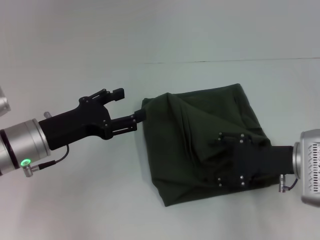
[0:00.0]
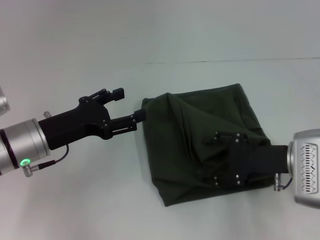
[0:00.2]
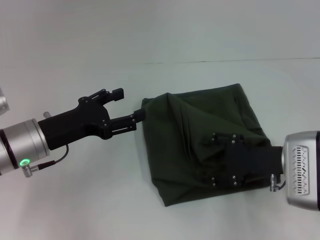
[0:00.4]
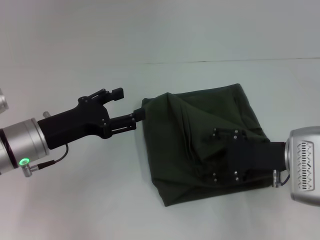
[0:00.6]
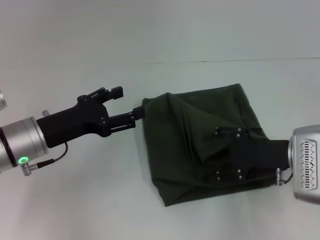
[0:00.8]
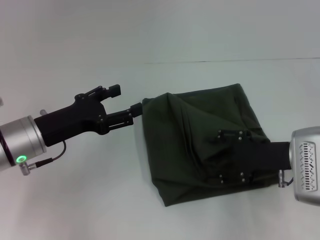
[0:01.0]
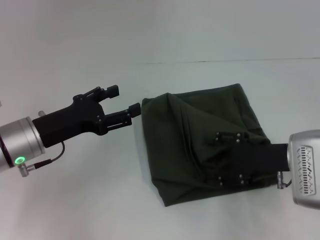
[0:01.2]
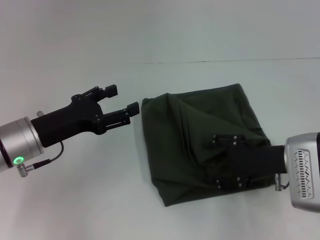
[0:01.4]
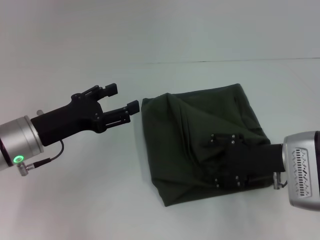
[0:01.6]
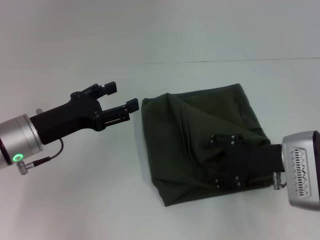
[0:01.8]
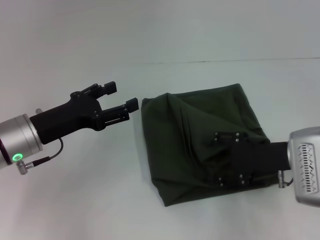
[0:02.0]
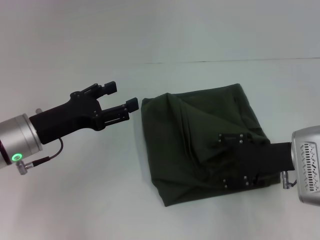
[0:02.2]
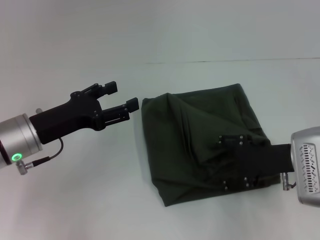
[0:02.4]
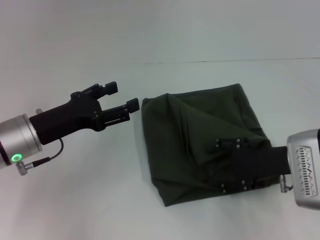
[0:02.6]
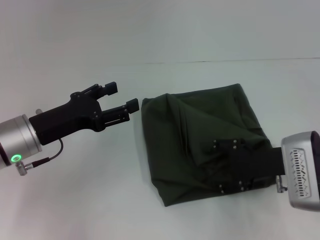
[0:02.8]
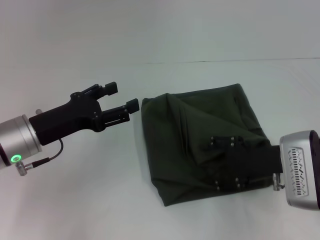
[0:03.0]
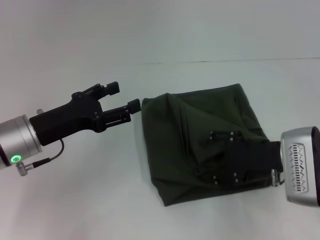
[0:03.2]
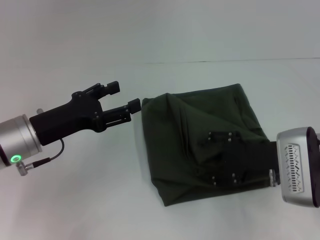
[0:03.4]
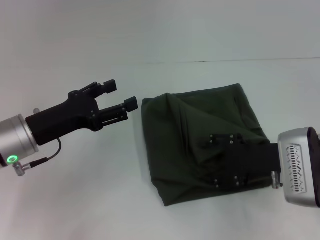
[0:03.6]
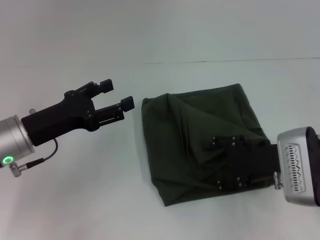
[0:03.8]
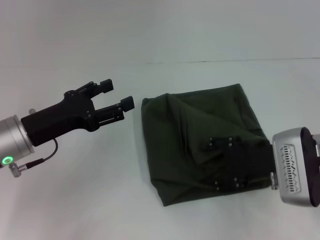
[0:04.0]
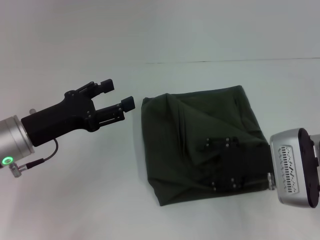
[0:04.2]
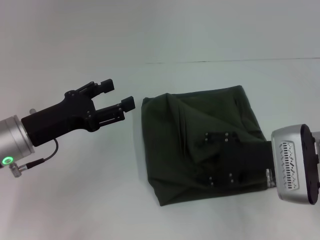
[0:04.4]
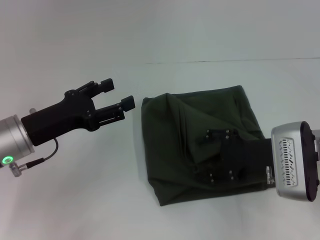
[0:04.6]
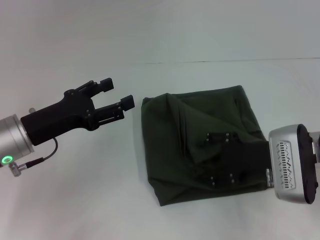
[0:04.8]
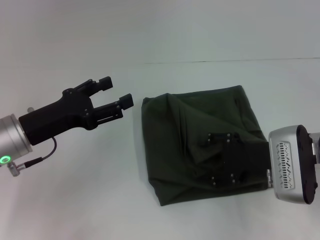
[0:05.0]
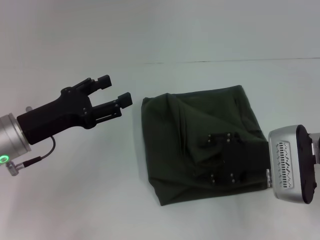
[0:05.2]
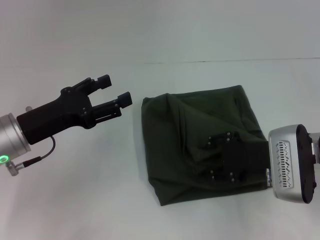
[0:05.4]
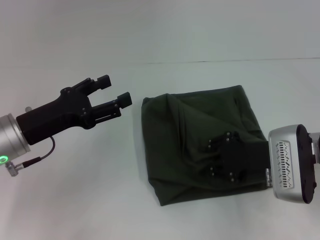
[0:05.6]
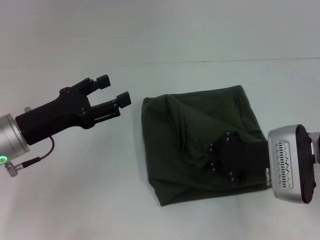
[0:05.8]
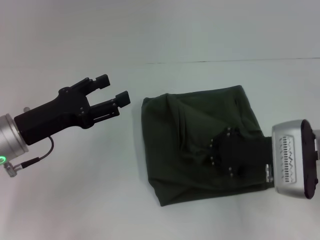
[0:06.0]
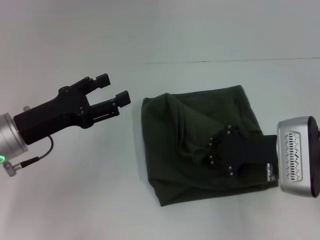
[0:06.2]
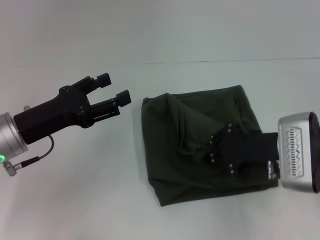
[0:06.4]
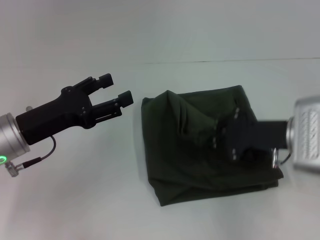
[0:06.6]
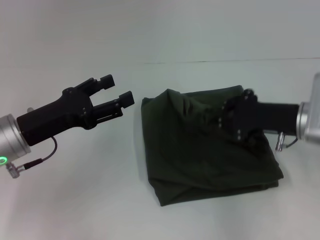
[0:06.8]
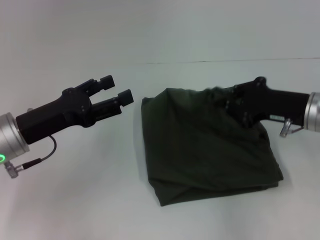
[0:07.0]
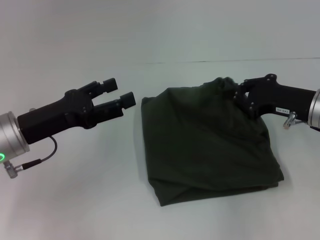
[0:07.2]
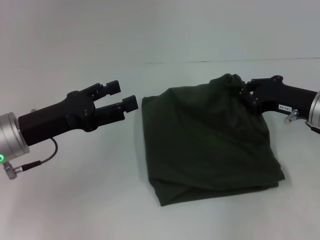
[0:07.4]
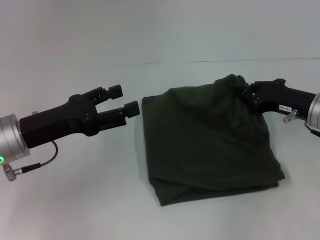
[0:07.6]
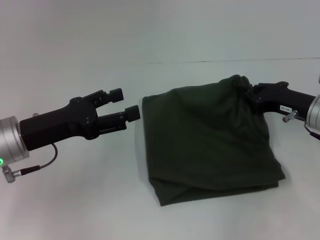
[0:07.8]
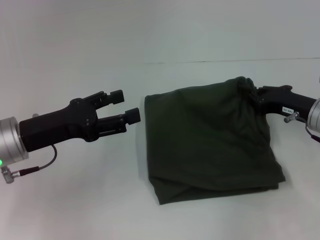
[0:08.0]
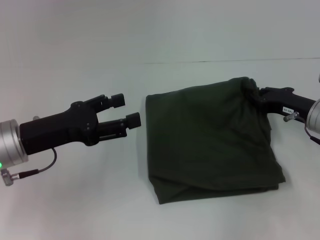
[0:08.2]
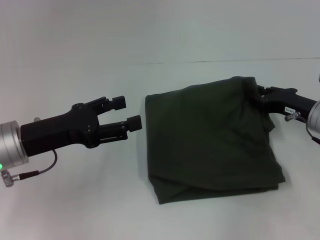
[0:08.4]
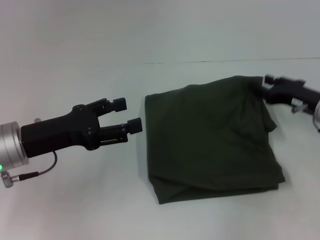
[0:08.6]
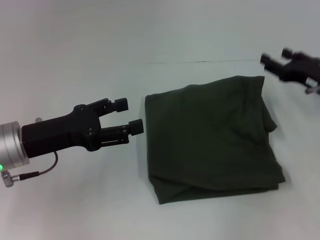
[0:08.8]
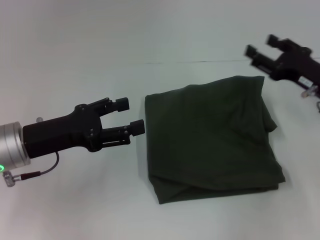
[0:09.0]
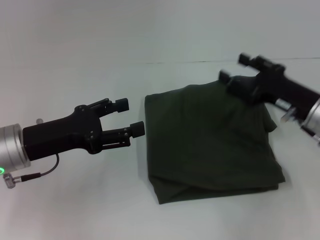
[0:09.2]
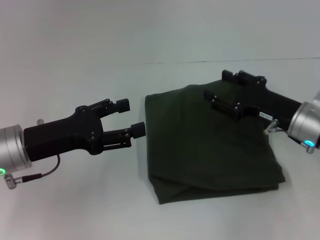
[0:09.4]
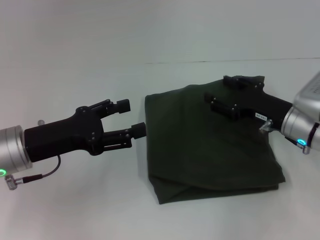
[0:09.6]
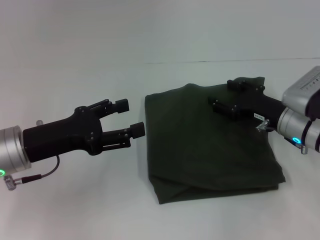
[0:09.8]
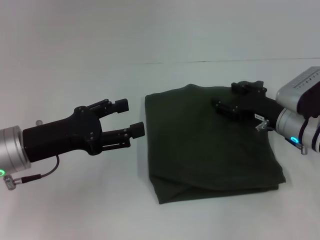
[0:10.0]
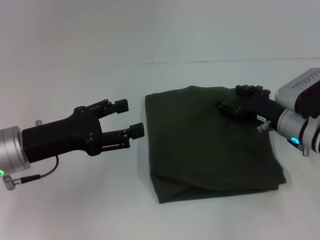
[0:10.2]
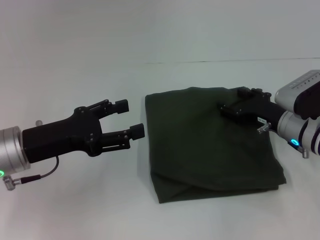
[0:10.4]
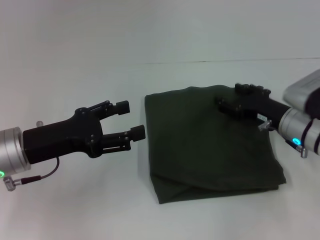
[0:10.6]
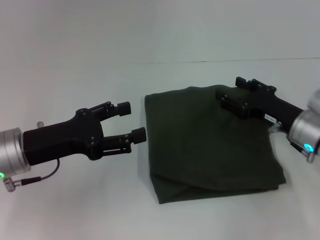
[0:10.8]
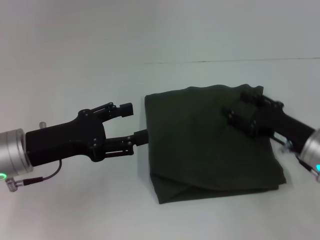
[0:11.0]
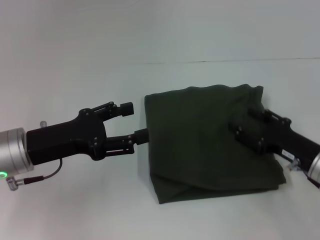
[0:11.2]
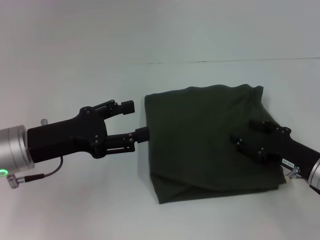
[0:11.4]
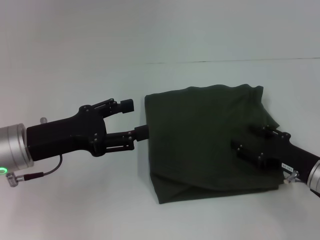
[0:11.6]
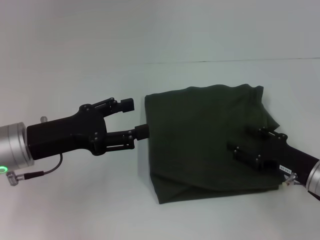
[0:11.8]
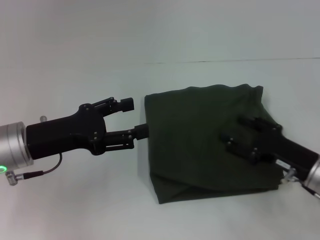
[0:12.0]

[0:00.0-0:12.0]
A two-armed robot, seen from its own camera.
0:00.0 to 0:01.6: The grippers stay close to where they were, moving slightly.
0:01.6 to 0:04.4: Both grippers stay put.
0:04.4 to 0:06.0: The right gripper closes its fingers.
0:06.0 to 0:07.6: The right gripper travels to the right by some 5 cm.
0:07.6 to 0:09.0: The right gripper opens up.
0:09.0 to 0:10.4: The right gripper travels downward by about 5 cm.
0:10.4 to 0:12.0: The right gripper goes roughly 10 cm backward.

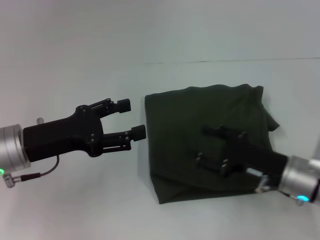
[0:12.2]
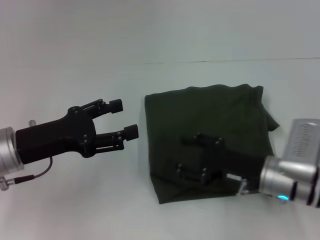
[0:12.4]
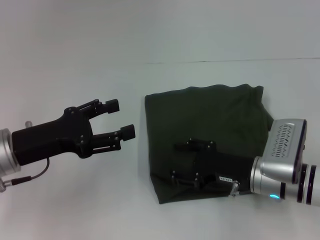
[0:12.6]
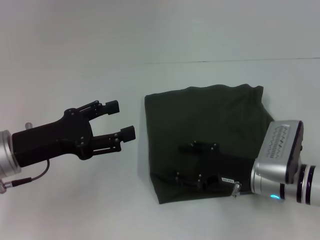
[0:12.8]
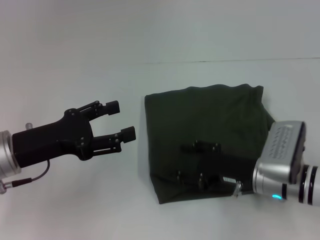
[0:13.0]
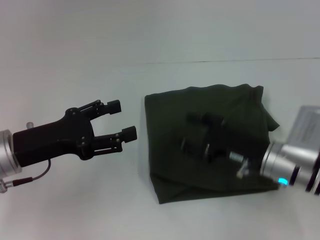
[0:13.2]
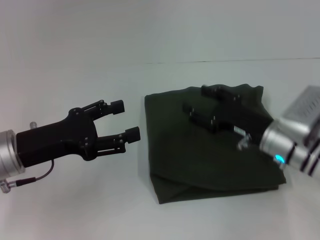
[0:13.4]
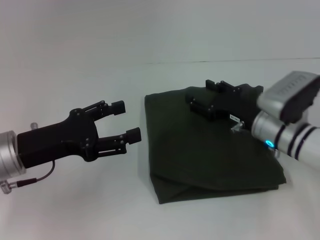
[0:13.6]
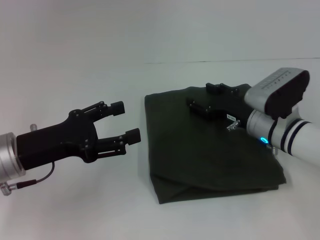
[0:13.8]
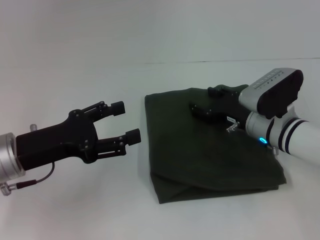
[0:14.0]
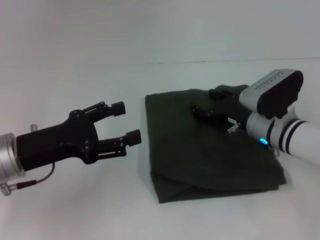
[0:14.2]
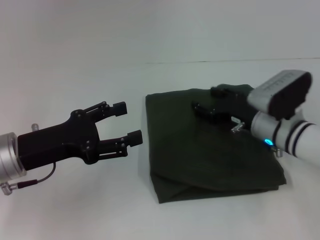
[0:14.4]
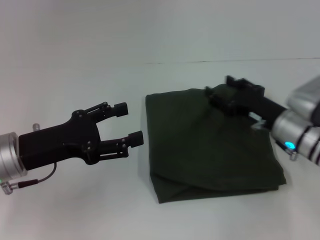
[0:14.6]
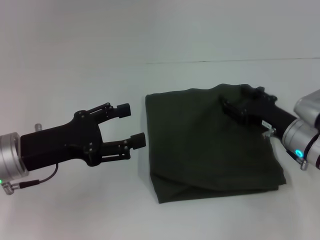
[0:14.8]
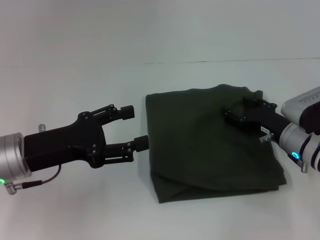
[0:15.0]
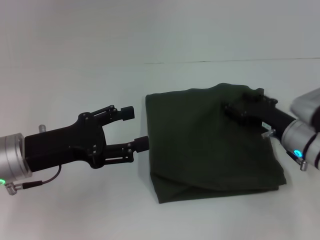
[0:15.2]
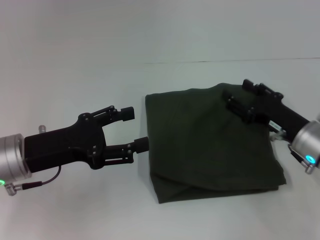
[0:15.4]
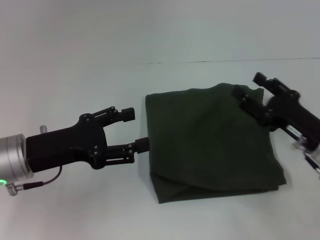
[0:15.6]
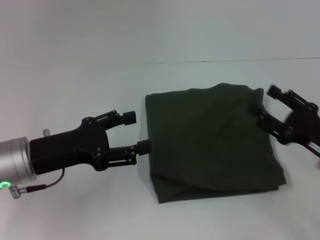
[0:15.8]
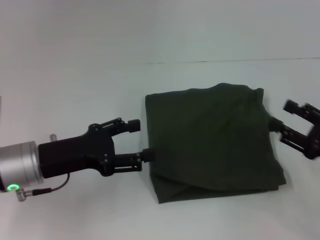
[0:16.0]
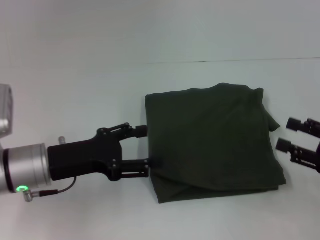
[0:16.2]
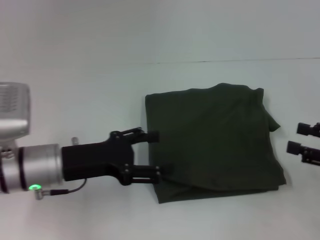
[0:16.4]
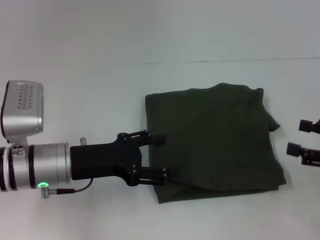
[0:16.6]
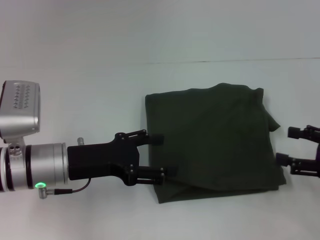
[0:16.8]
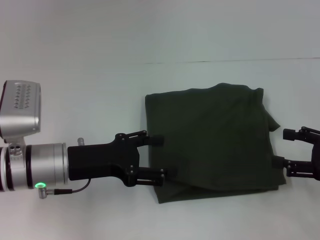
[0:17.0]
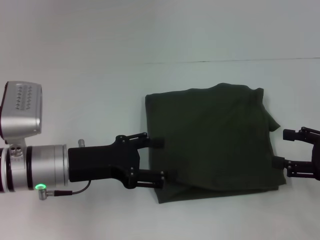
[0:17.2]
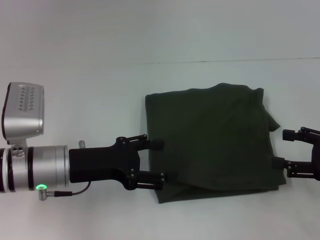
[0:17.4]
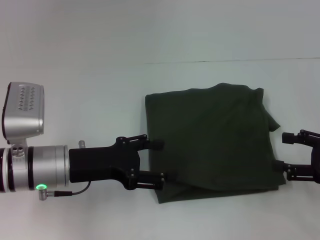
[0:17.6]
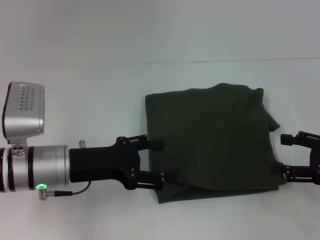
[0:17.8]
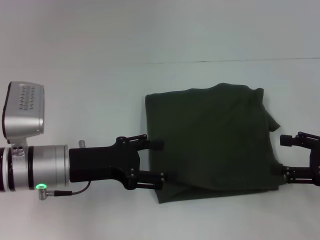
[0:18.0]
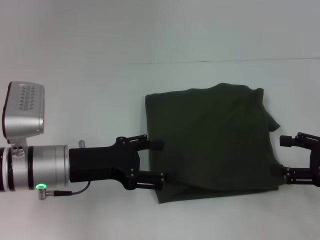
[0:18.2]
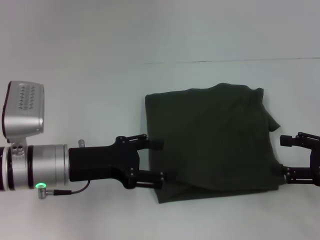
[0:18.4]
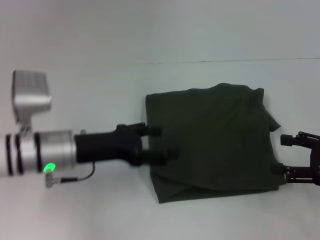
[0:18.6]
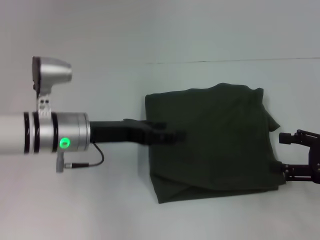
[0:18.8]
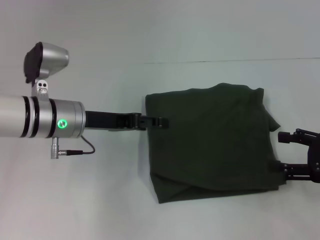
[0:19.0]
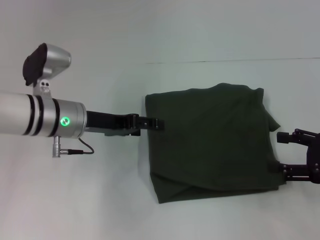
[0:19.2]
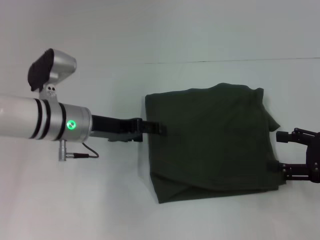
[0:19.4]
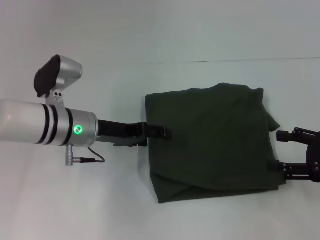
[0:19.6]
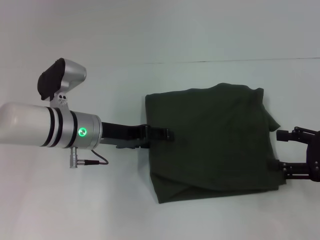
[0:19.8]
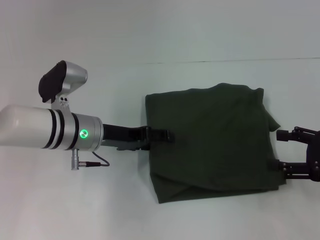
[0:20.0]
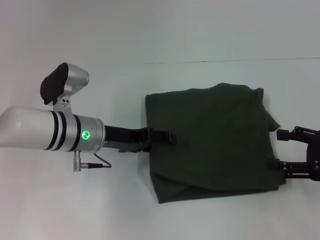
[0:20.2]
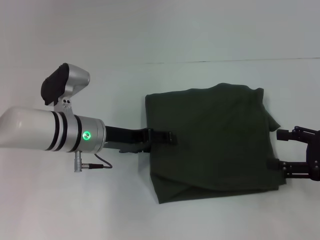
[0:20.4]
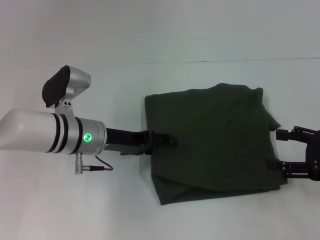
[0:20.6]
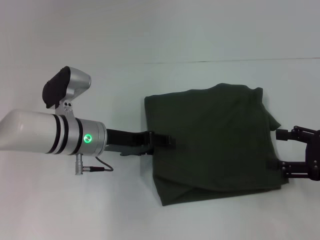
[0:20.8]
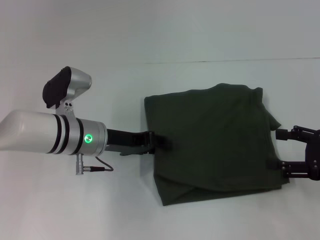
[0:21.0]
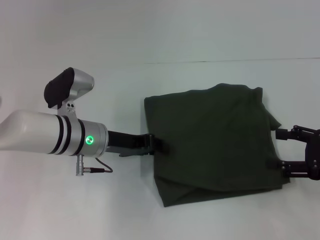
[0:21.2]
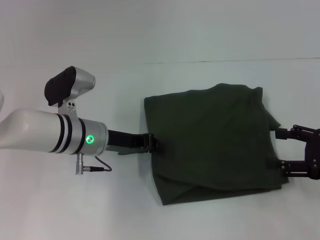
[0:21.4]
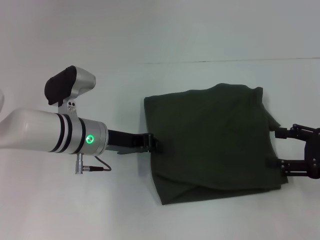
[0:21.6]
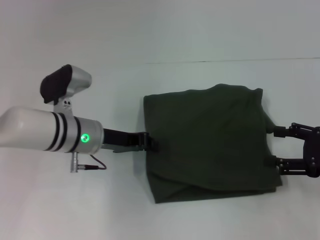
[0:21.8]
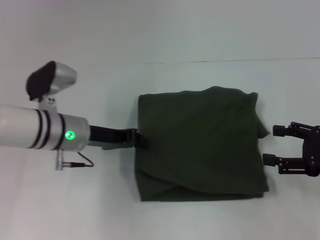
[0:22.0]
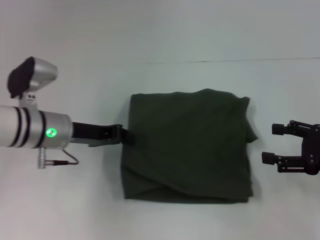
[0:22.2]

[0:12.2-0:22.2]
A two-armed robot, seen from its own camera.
0:12.2 to 0:13.6: The right gripper is displaced forward by roughly 10 cm.
0:13.6 to 0:15.0: The right gripper shifts by some 5 cm.
0:15.0 to 0:16.4: The right gripper moves to the right, backward and upward, roughly 15 cm.
0:16.4 to 0:18.0: The grippers move only a little.
0:18.0 to 0:19.4: The left gripper heads forward, covering some 10 cm.
0:19.4 to 0:20.8: The grippers stay close to where they were, moving slightly.
0:20.8 to 0:22.2: The left gripper moves some 5 cm, and closes up.
